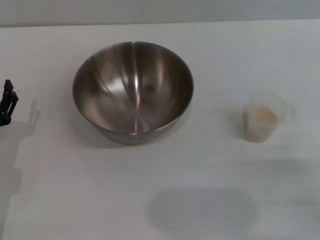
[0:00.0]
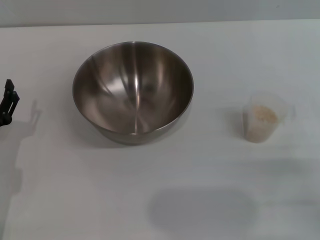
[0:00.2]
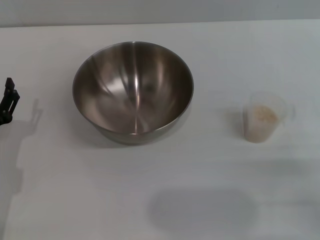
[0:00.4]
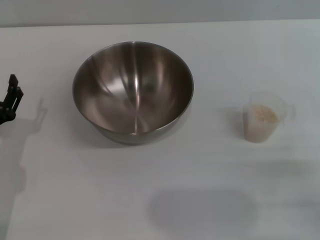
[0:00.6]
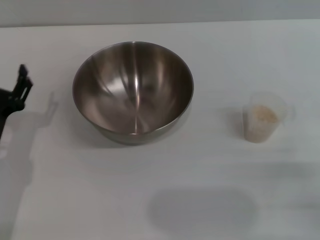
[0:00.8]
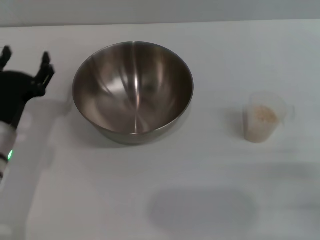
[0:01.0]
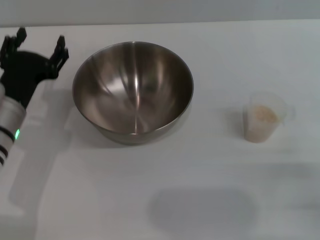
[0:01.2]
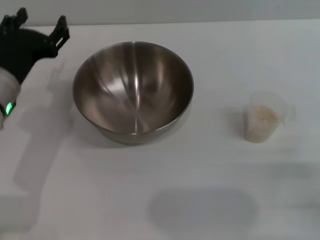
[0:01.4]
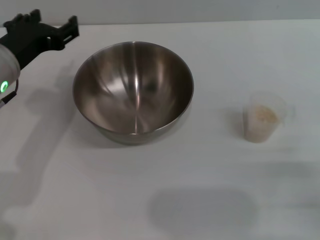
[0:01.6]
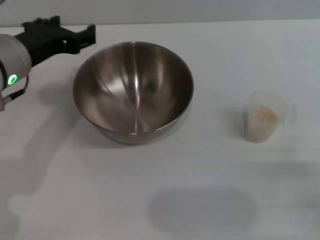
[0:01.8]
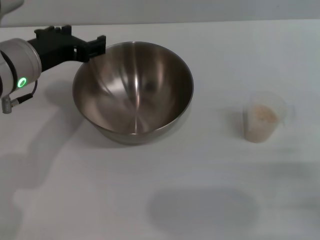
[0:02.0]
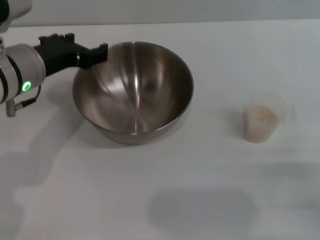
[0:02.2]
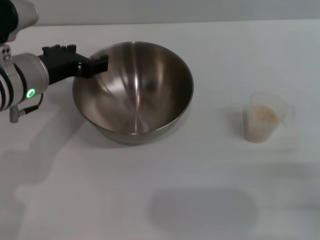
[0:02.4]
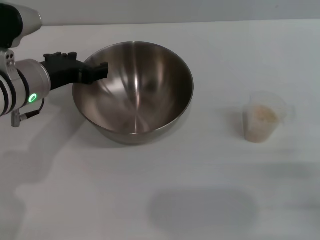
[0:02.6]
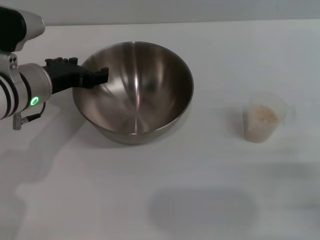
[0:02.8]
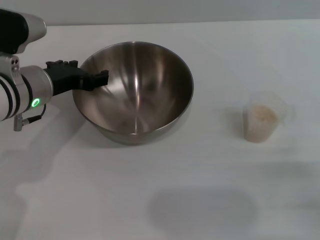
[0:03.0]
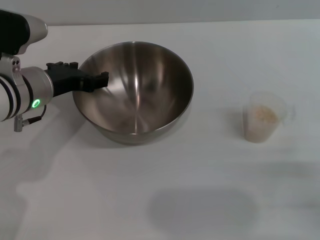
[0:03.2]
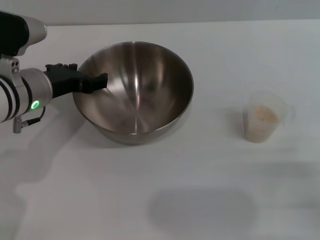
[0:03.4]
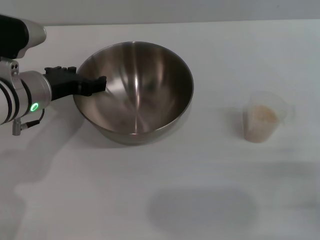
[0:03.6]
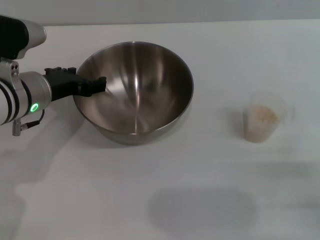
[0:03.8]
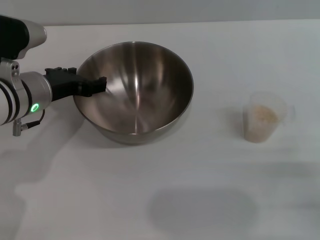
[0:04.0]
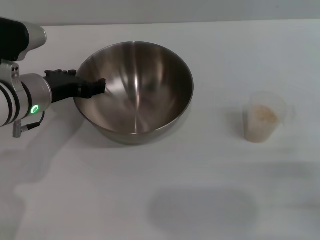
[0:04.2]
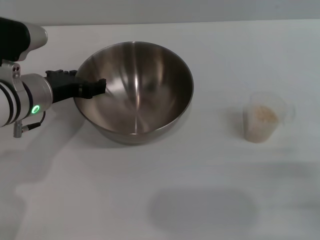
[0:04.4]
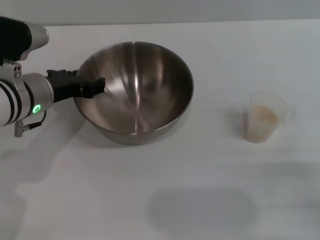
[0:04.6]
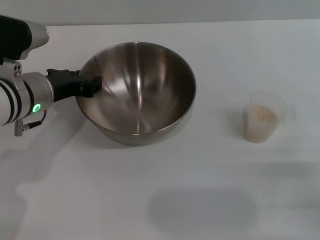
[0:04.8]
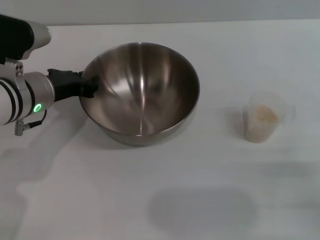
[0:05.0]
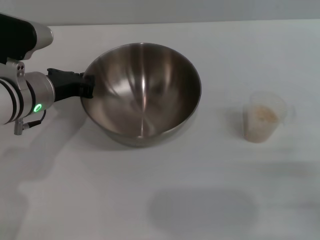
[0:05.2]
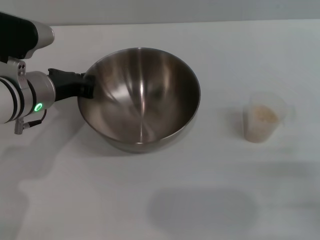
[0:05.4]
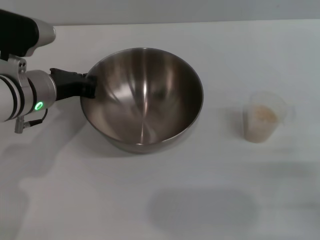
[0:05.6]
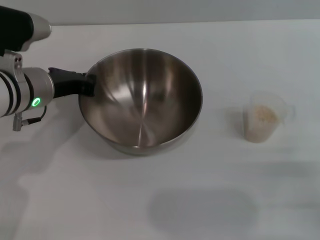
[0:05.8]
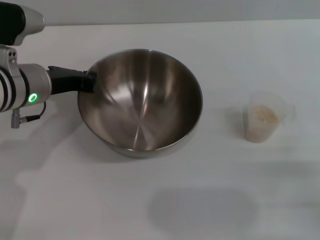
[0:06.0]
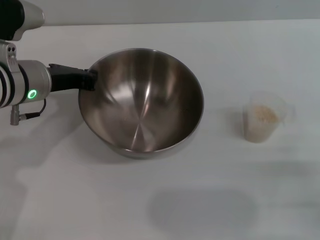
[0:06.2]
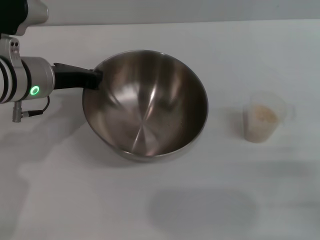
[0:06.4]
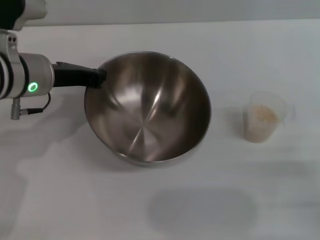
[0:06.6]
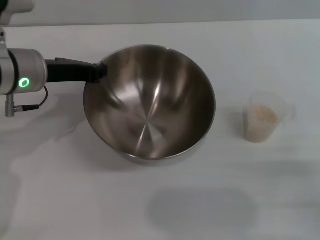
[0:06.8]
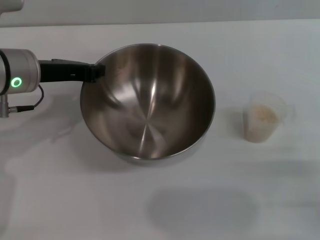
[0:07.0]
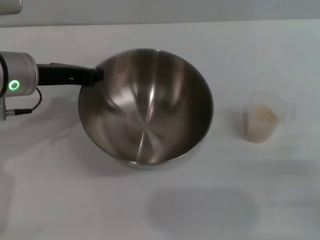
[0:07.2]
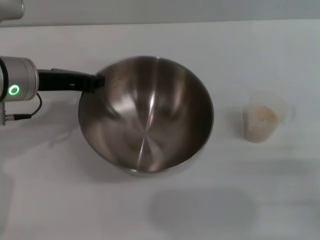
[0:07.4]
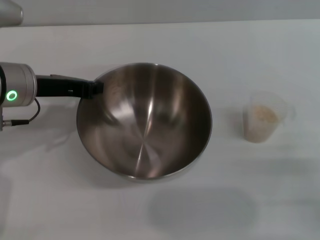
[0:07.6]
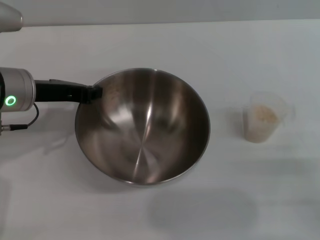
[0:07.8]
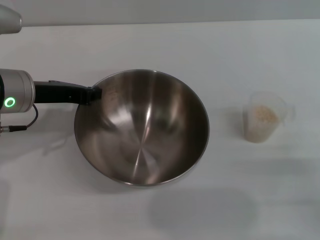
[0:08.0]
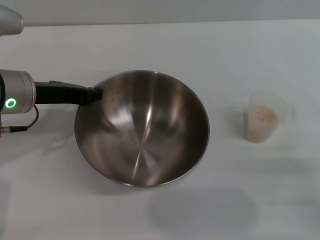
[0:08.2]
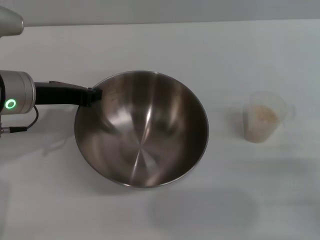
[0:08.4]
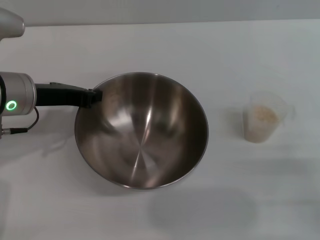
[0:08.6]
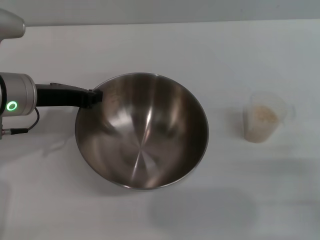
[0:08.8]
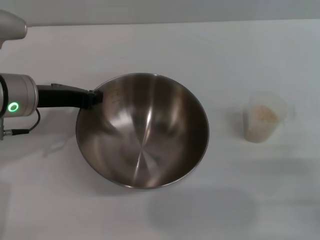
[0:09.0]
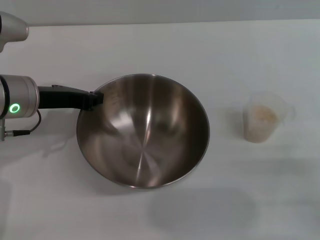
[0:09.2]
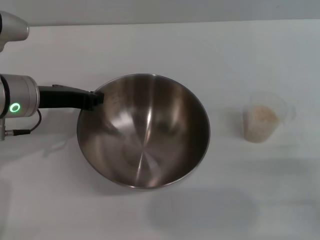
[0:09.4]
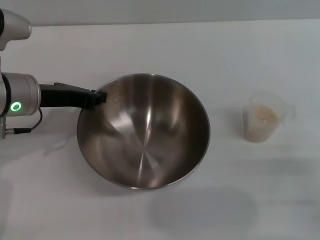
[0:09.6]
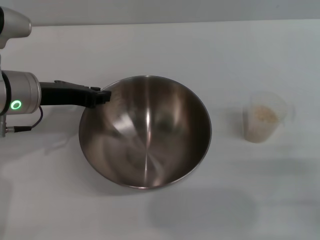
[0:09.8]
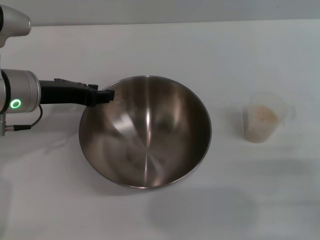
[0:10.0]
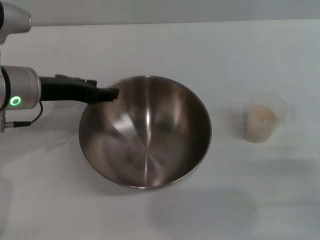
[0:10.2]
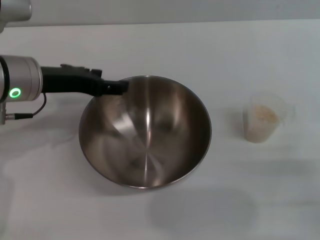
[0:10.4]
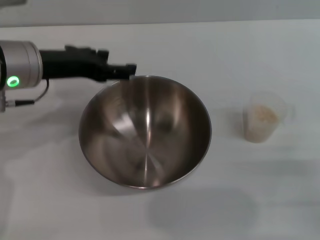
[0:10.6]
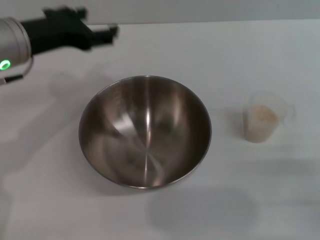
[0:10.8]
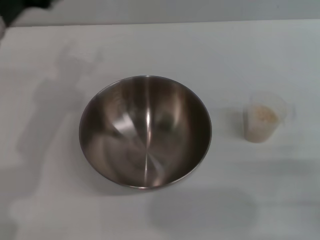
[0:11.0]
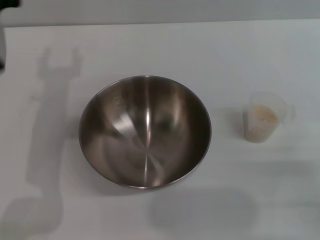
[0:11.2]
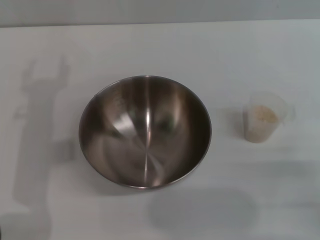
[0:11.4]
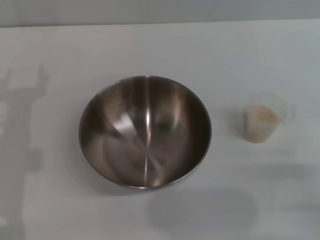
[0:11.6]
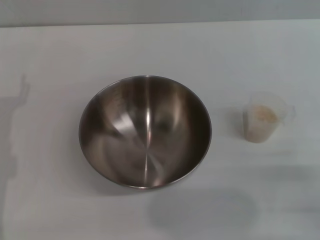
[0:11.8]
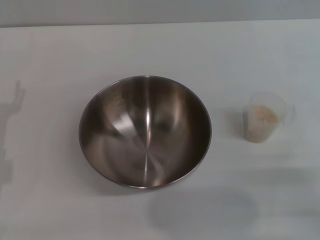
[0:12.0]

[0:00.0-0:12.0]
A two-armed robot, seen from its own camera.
Task of the whole recording: Place the bowl in the middle of the table with one hand and pour the rice from the grain cup into it with the other hand.
Step, 0:00.0 to 0:07.4: Pick up the bowl with the left gripper.
Step, 0:07.6 to 0:10.6: Place the bowl in the center of view with the left gripper.
0:00.0 to 0:01.6: The left gripper heads upward, forward and to the right, covering approximately 20 cm.
0:01.6 to 0:03.0: The grippers make only small movements.
0:03.0 to 0:04.4: Neither gripper changes place.
0:04.4 to 0:06.0: The left gripper closes.
0:06.0 to 0:07.6: The grippers move only a little.
0:07.6 to 0:09.0: Both grippers stay about where they are.
0:09.0 to 0:10.4: The left gripper opens.
0:10.4 to 0:12.0: The left gripper shifts roughly 15 cm downward, to the left and backward.

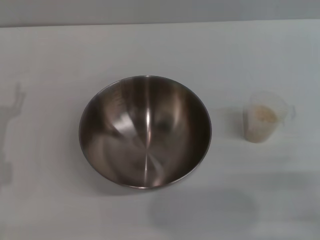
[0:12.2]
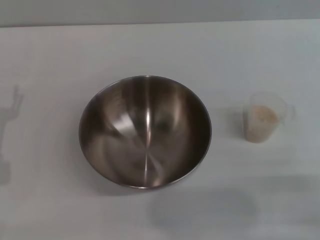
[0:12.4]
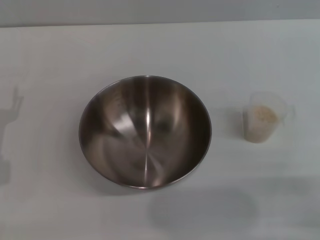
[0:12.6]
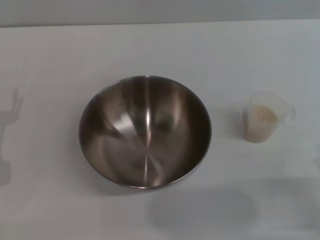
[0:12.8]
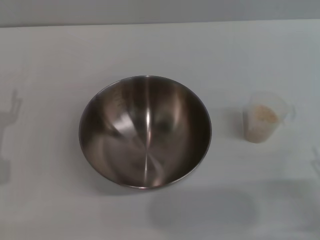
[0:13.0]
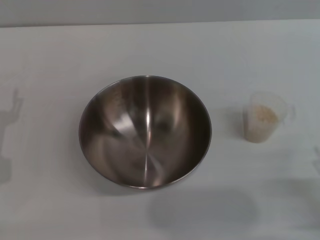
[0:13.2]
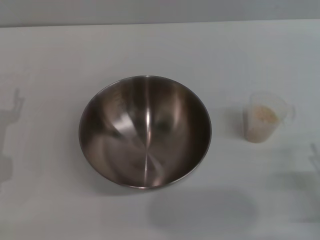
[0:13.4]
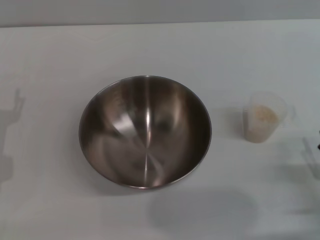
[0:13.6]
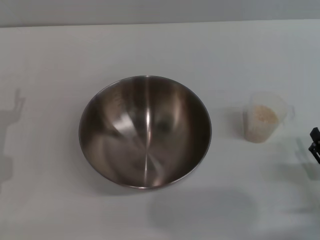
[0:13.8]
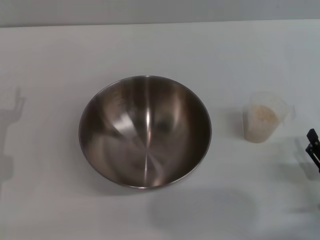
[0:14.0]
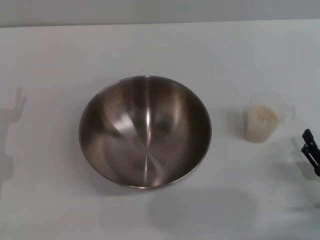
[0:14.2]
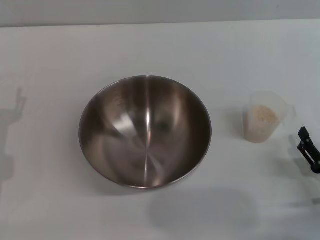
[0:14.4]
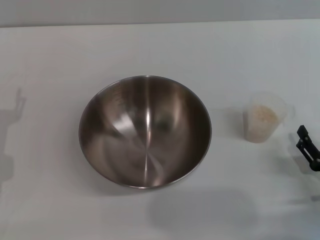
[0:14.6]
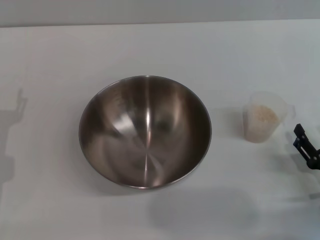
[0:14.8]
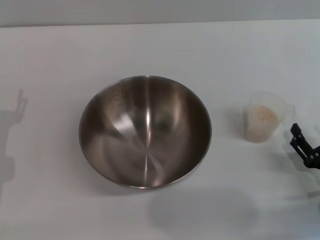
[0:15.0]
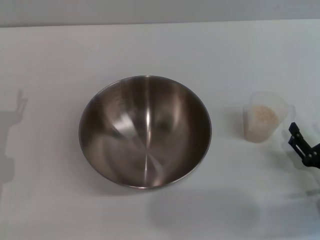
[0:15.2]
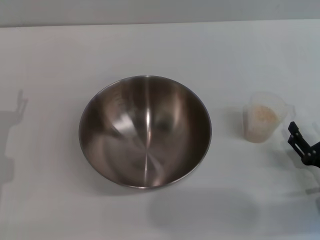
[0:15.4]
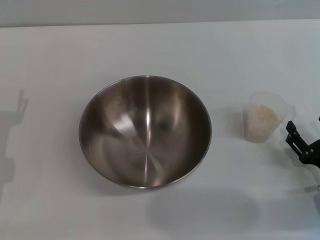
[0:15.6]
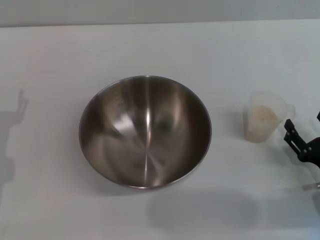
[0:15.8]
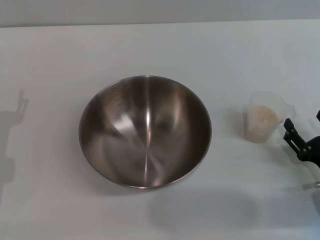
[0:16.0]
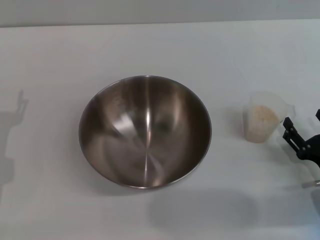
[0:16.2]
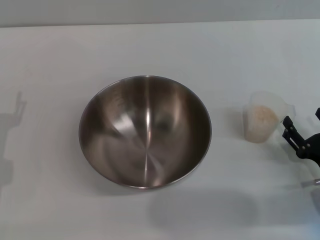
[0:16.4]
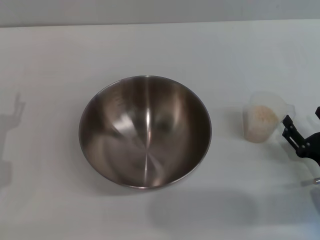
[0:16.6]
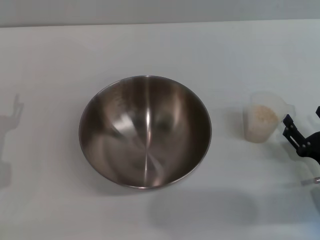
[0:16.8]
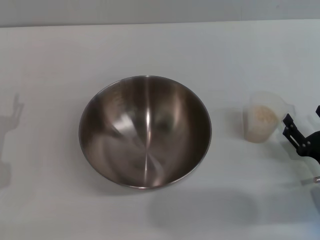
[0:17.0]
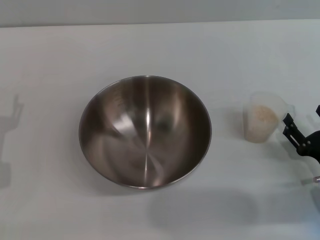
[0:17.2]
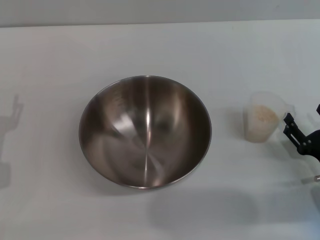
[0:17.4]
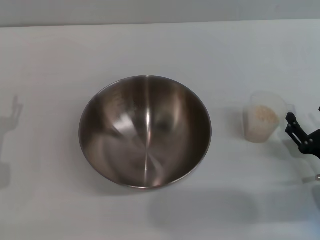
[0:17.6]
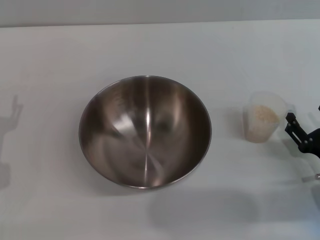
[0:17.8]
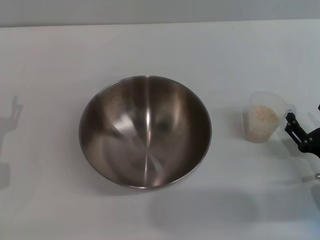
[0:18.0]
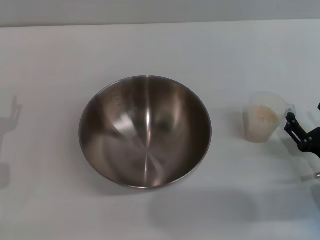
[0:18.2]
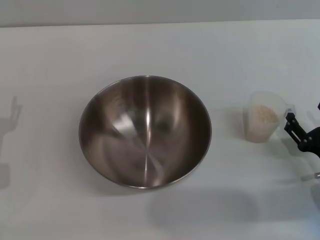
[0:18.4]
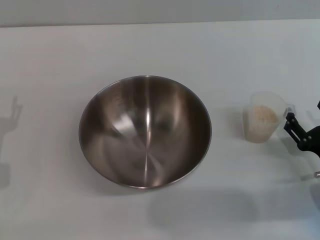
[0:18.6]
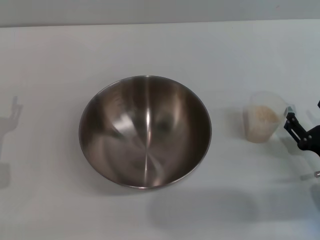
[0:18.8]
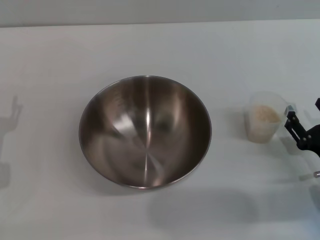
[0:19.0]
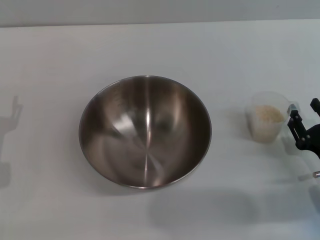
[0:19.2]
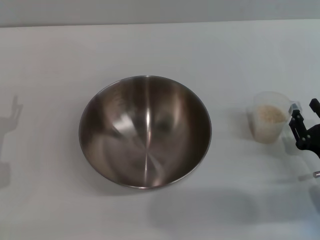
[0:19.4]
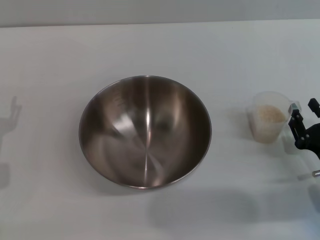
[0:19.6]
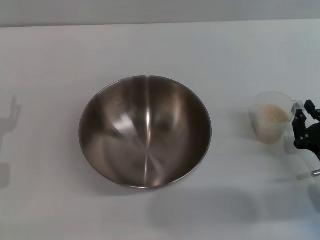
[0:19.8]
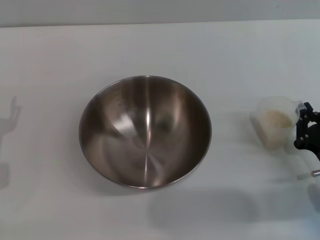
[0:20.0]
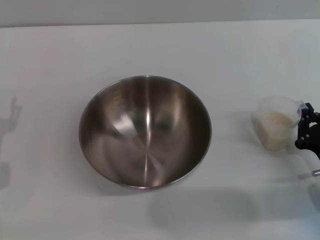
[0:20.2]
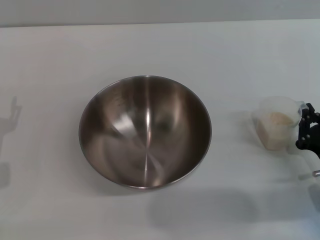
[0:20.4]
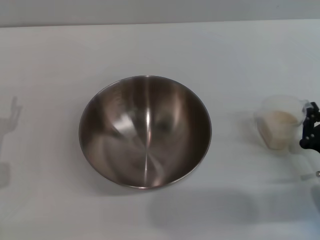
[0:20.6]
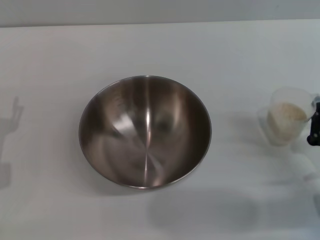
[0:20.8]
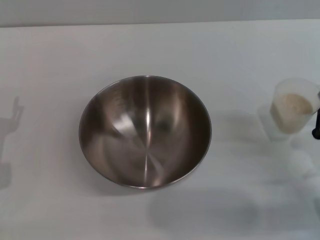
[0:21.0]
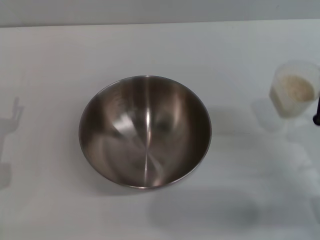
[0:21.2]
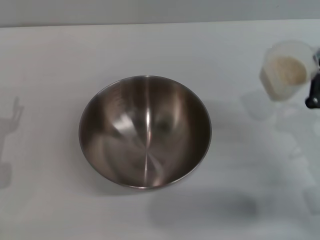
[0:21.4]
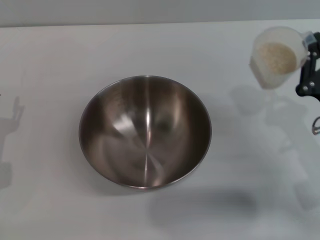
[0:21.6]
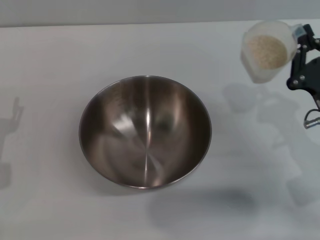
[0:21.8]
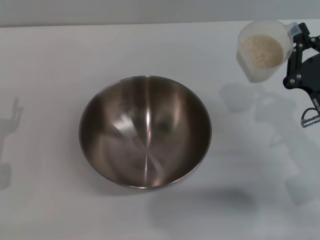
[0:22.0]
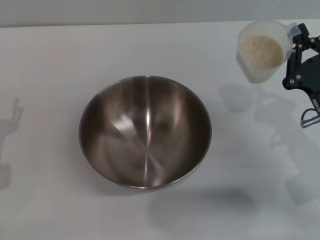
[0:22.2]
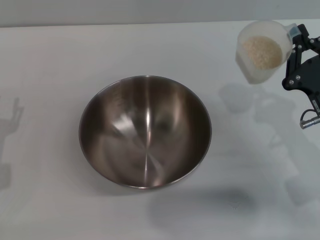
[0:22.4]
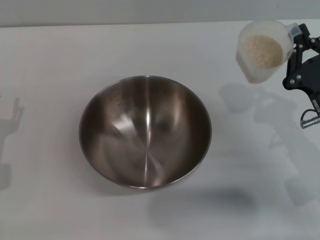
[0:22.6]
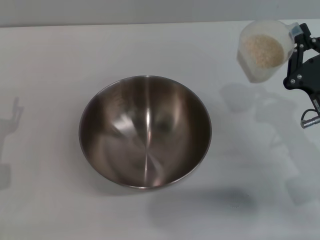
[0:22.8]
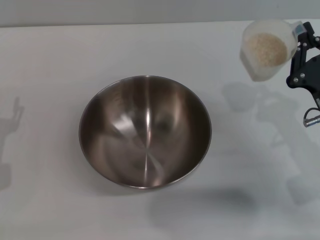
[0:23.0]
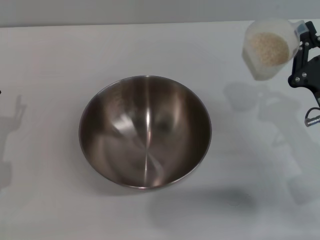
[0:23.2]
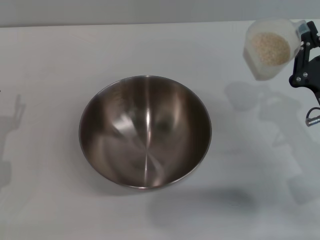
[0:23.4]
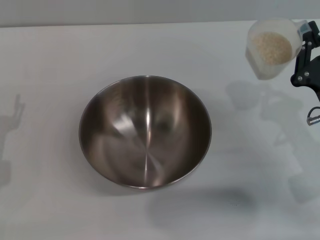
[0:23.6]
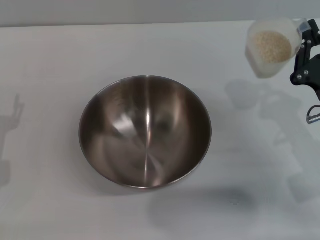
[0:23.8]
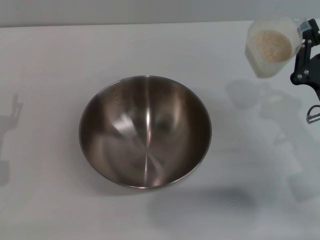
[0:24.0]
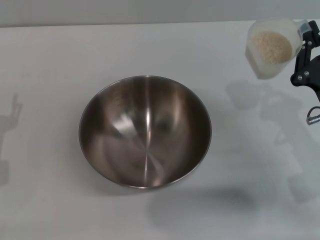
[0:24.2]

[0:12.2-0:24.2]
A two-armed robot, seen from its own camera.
Task of the whole recording: Place the bowl in the middle of the table with one hand and pour the rice from the grain cup into it with the other hand.
Step, 0:12.2 to 0:21.0: Pick up the cup with rice in it with the right gripper.
0:12.2 to 0:13.8: The right gripper moves some 5 cm.
0:13.8 to 0:16.6: There are only small adjustments of the grippers.
0:16.6 to 0:18.2: The two grippers keep their place.
0:18.2 to 0:19.8: The right gripper closes.
0:19.8 to 0:21.2: The right gripper closes up.
0:21.2 to 0:22.6: The right gripper ends up approximately 5 cm from where it was.
0:22.6 to 0:24.2: Neither gripper changes place.
